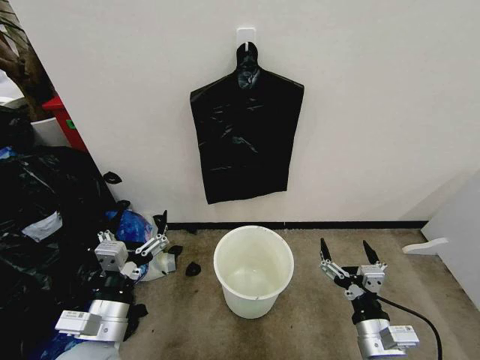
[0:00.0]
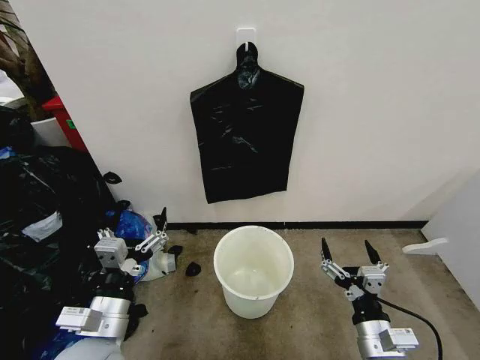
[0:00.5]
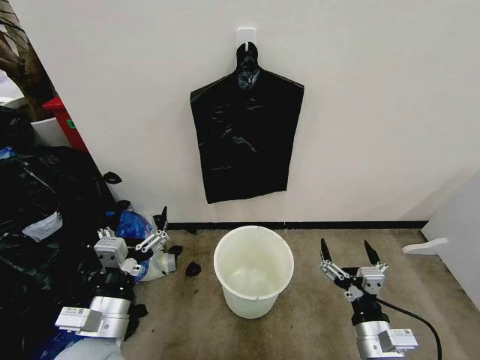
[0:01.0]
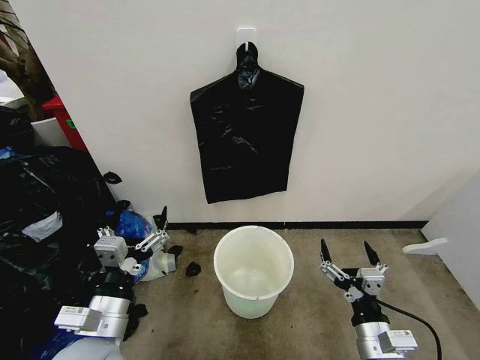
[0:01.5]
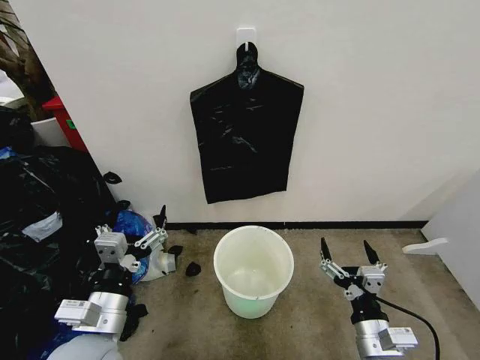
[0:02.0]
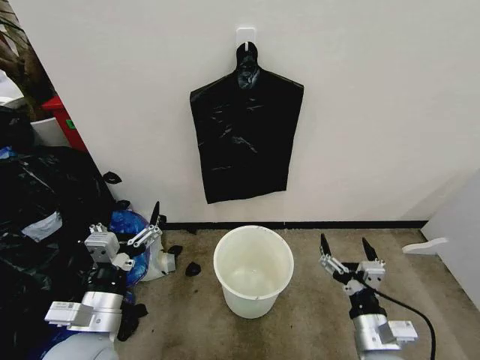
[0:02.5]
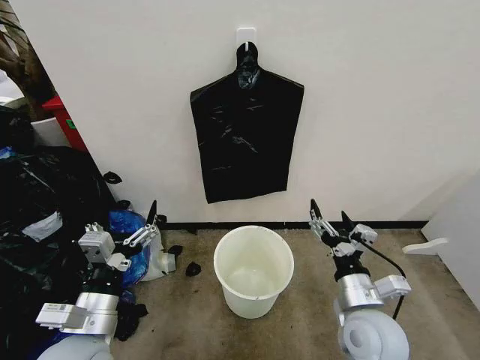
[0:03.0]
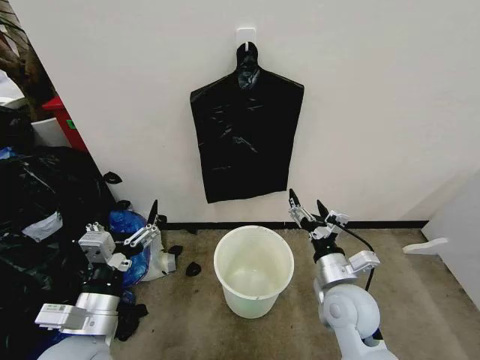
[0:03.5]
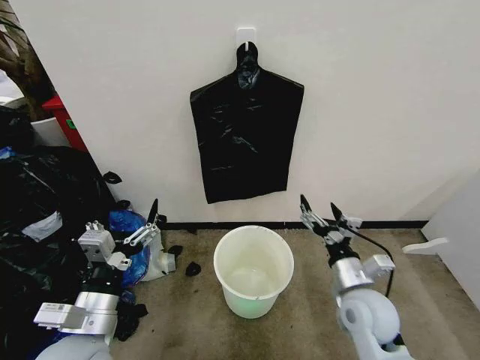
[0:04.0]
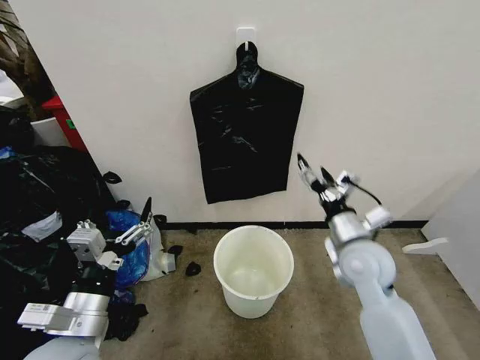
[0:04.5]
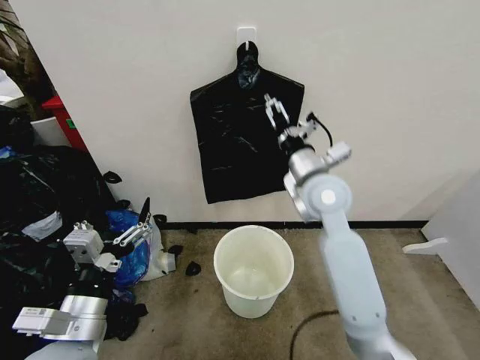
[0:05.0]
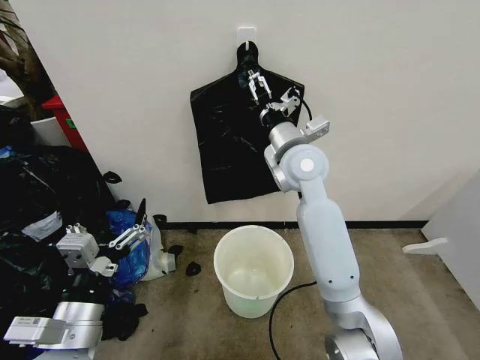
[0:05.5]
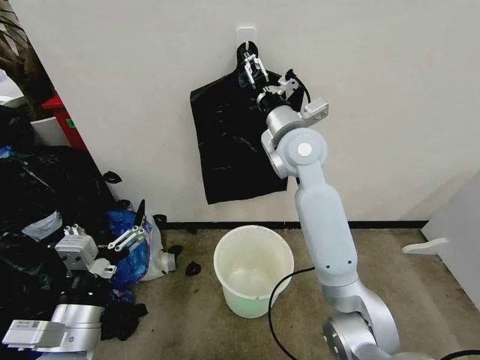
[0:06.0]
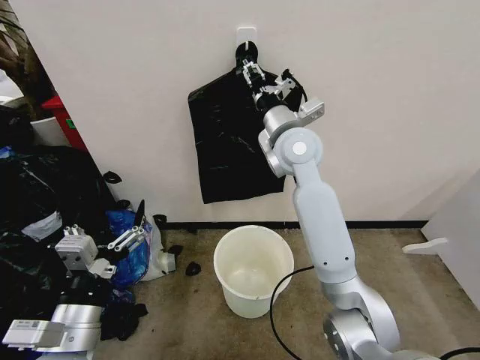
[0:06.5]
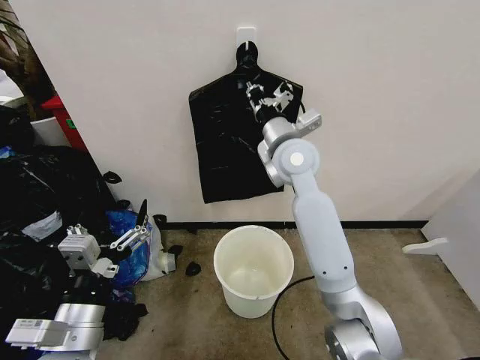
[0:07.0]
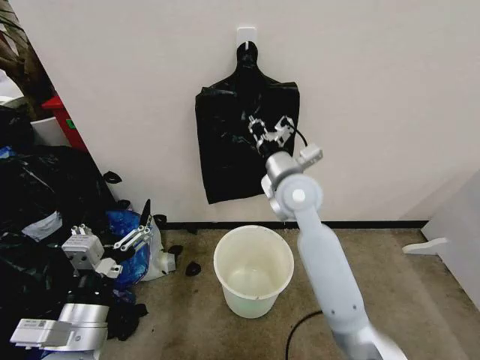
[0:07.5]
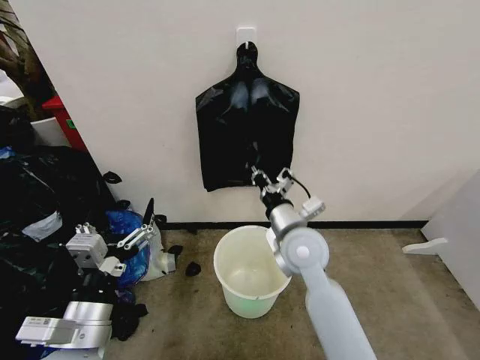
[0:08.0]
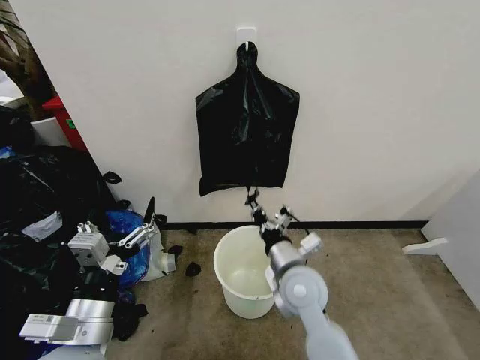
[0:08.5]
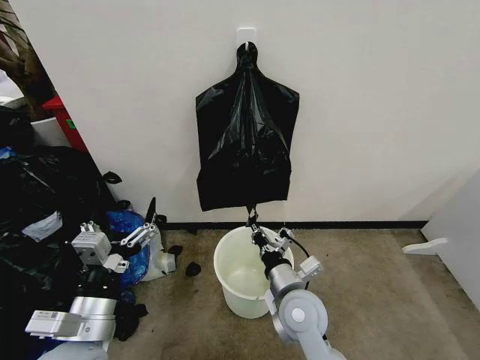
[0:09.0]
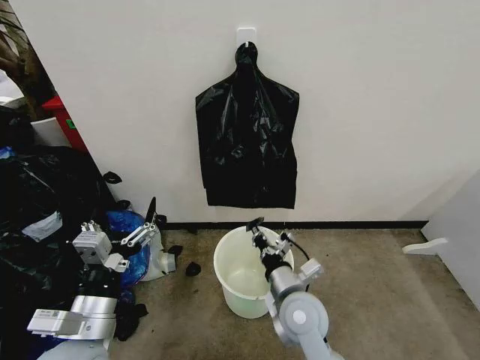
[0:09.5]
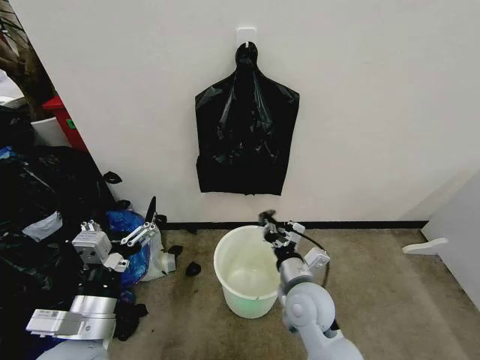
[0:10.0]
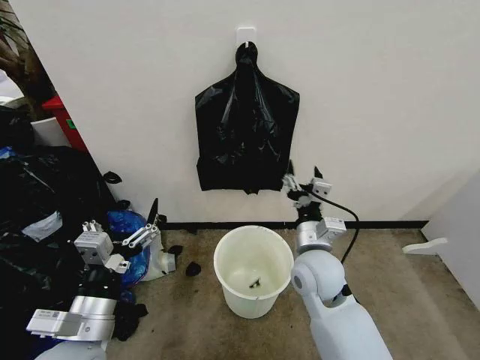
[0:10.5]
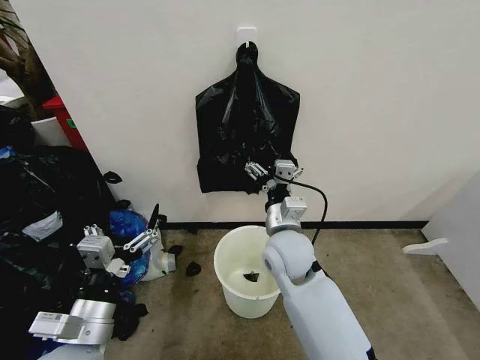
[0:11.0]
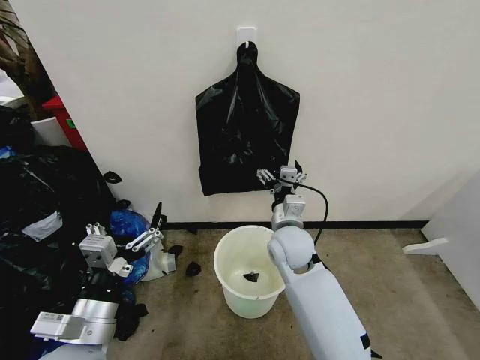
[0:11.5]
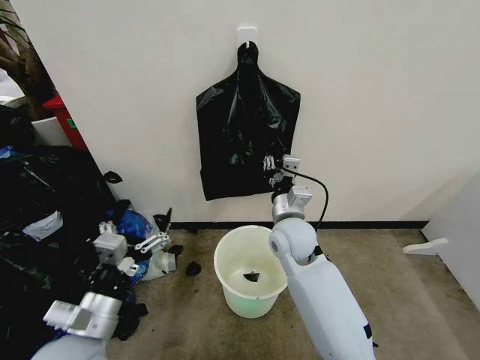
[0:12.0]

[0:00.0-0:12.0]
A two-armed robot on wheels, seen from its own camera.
Task of the whole recording: Place the garbage bag over the trash bin.
0:02.0 to 0:04.0: The right gripper travels forward by about 10 cm.
0:04.0 to 0:06.0: The right gripper travels upward, forward and to the left by about 35 cm.
0:06.0 to 0:08.0: The right gripper moves downward and backward, some 20 cm, and closes up.
0:08.0 to 0:10.0: The right gripper shifts some 10 cm downward and backward.
0:10.0 to 0:12.0: The right gripper goes some 15 cm forward and upward, and opens, then closes again.

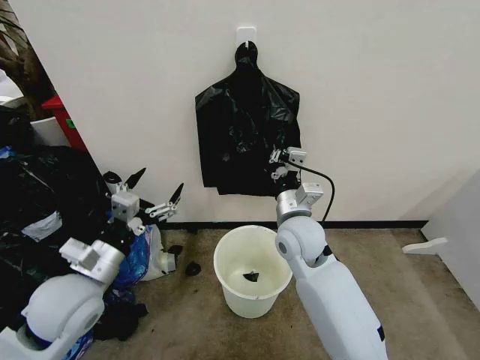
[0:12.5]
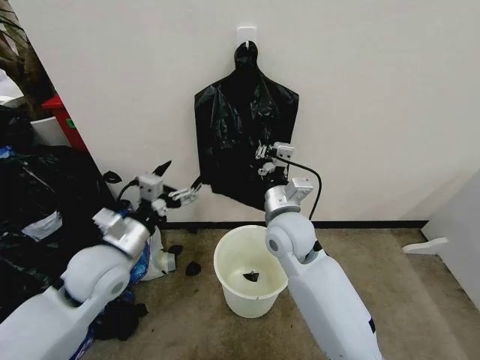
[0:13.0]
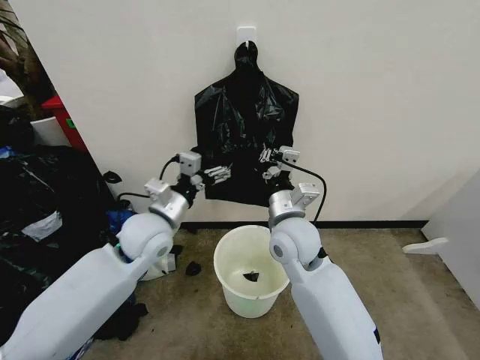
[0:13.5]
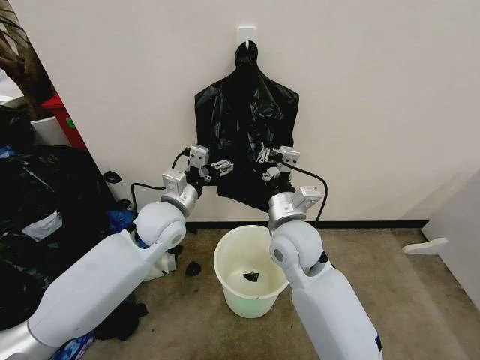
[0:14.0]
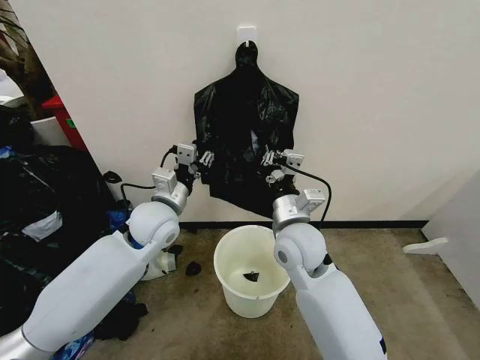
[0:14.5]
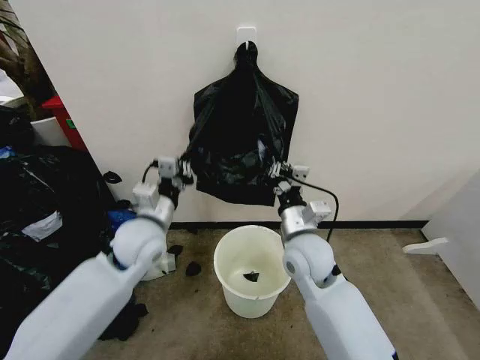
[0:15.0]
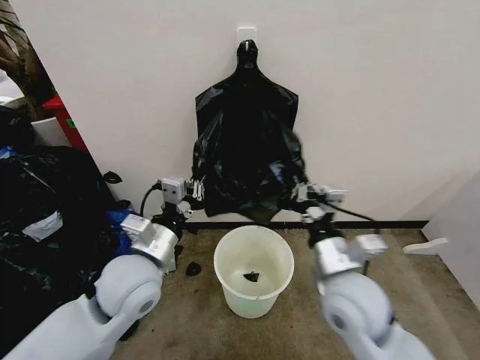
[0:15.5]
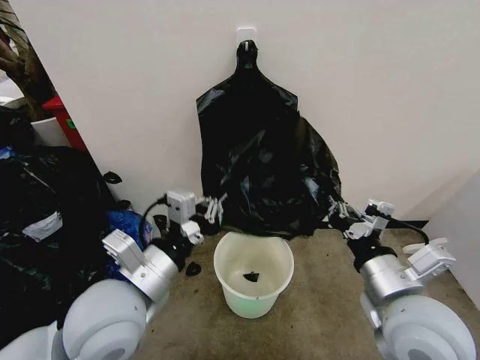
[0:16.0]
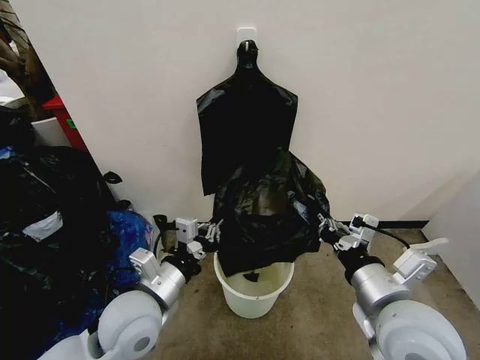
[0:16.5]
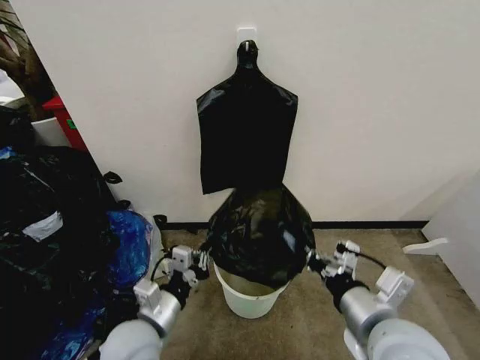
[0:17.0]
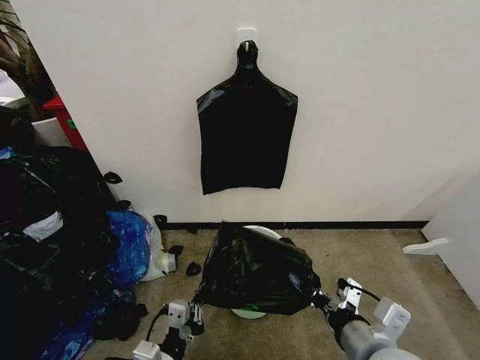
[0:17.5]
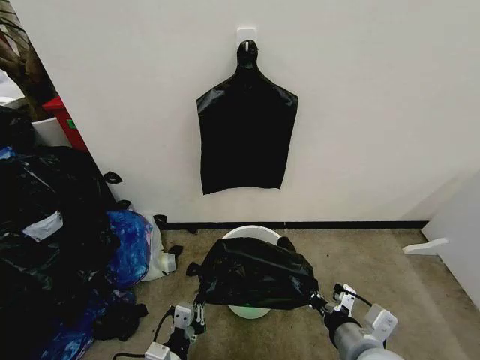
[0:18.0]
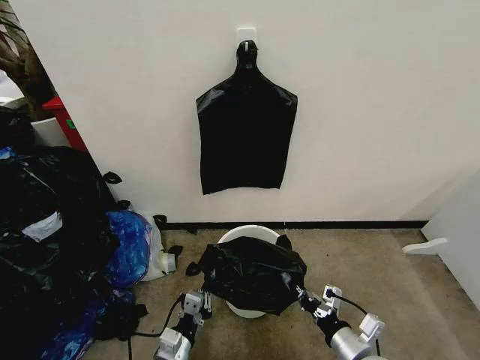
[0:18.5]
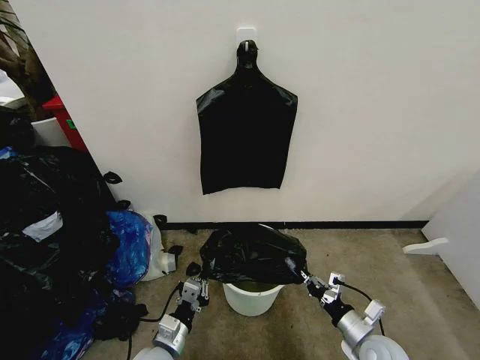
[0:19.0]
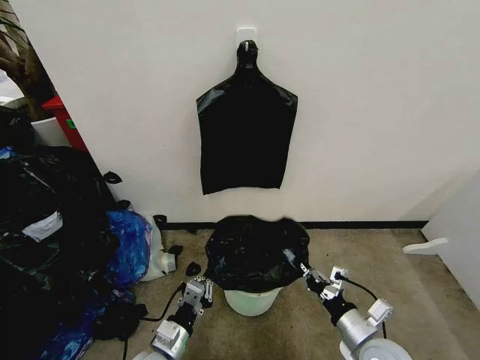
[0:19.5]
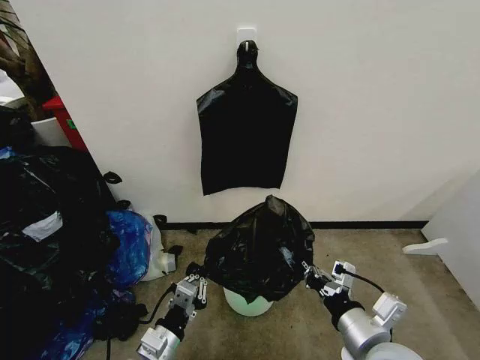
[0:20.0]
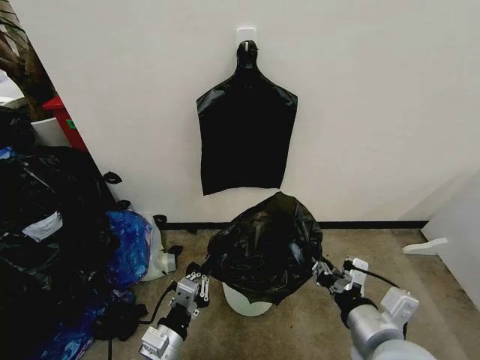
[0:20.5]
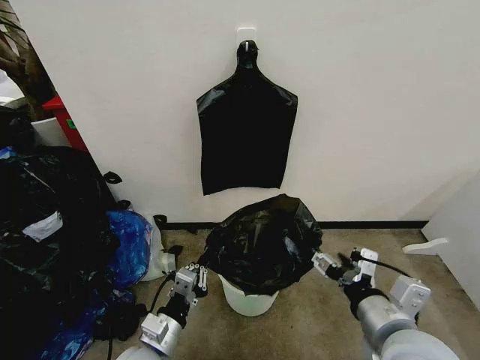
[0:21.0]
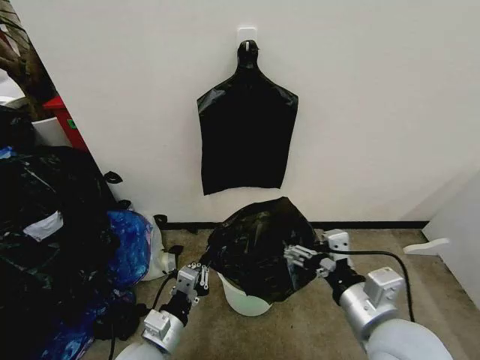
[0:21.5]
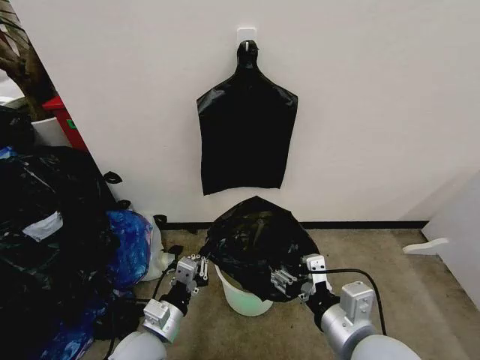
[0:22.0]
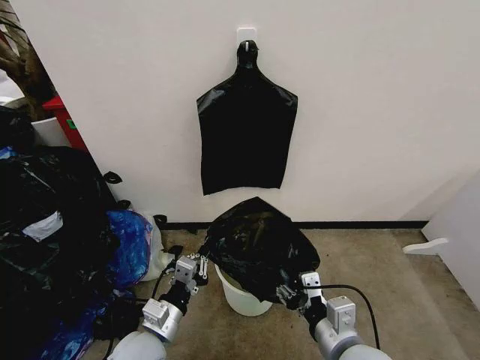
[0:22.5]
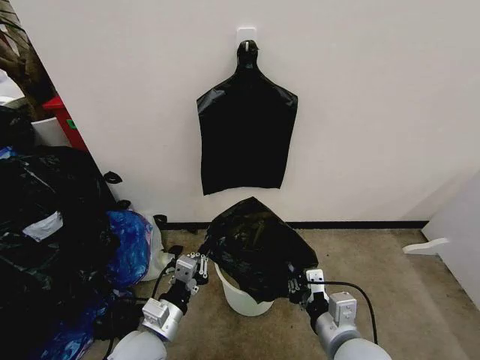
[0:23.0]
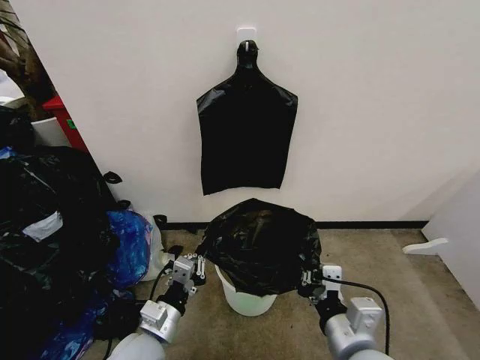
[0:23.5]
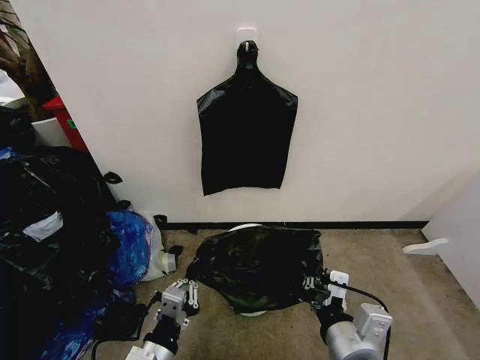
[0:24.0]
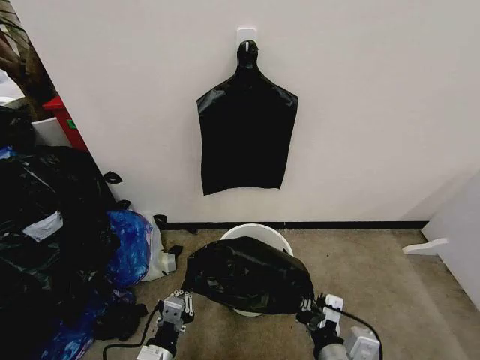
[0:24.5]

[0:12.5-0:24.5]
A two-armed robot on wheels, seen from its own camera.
Task of the whole recording: Place the garbage bag over the trash bin.
0:12.5 to 0:14.5: The left gripper heads forward and to the right, covering about 20 cm, and closes.
0:14.5 to 0:16.5: The right gripper heads backward and to the right, covering roughly 20 cm; the left gripper moves backward, roughly 20 cm, and closes.
0:16.5 to 0:18.5: Both grippers travel together downward, some 20 cm.
0:18.5 to 0:20.5: The right gripper is displaced upward by approximately 15 cm, while the left gripper is displaced upward by about 5 cm.
0:20.5 to 0:22.5: The right gripper changes place by some 5 cm, and opens, then closes once more.
0:22.5 to 0:24.5: The left gripper is displaced backward and downward by about 10 cm; the right gripper closes its fingers.

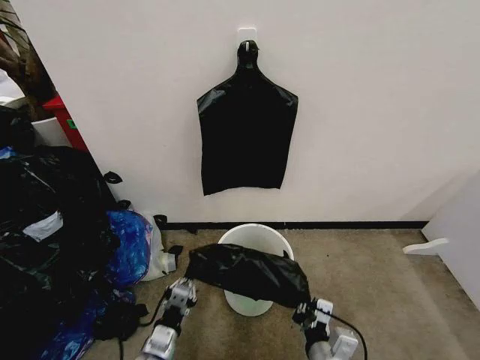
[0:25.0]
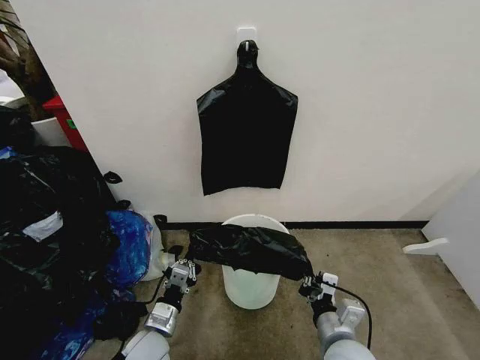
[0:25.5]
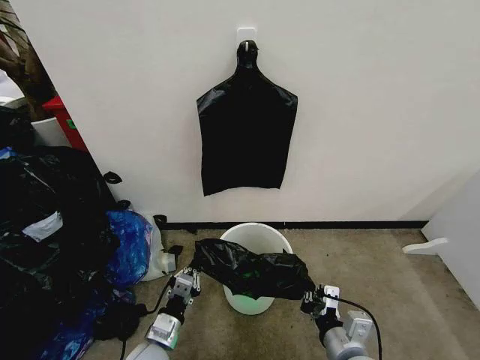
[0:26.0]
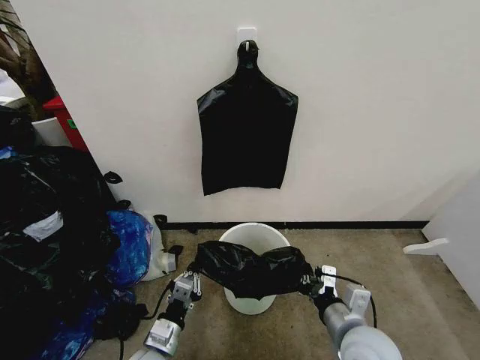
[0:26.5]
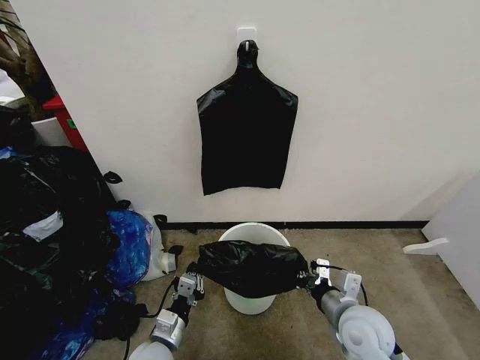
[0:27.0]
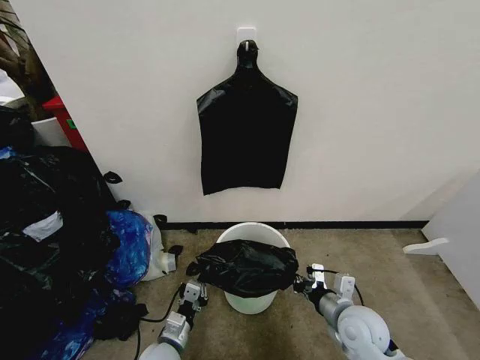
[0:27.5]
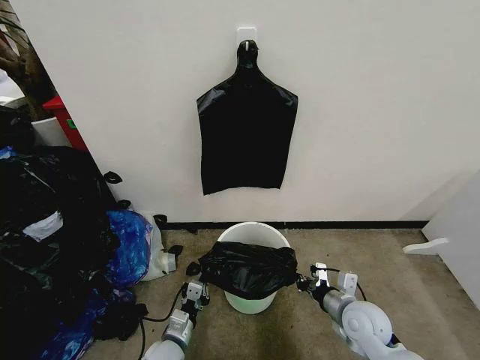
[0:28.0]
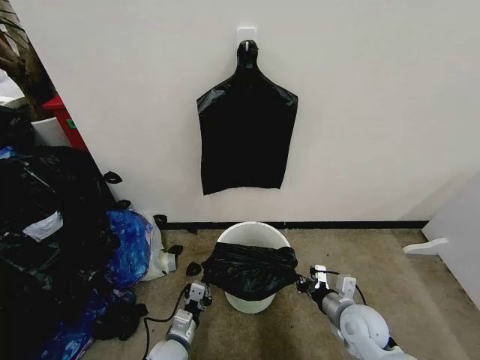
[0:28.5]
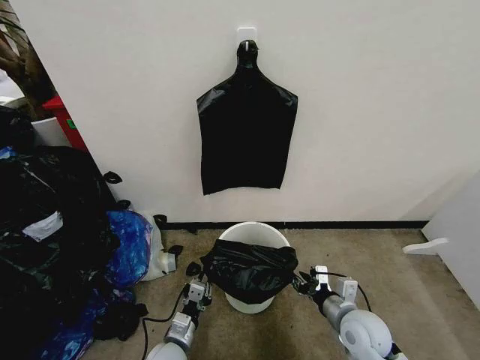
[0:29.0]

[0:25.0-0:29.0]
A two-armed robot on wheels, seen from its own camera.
Task of the whole recording: Place the garbage bag over the trash bin.
0:25.0 to 0:27.0: The right gripper goes about 10 cm forward and to the right.
0:27.0 to 0:29.0: The two grippers go roughly 5 cm downward. The right gripper opens its fingers.
